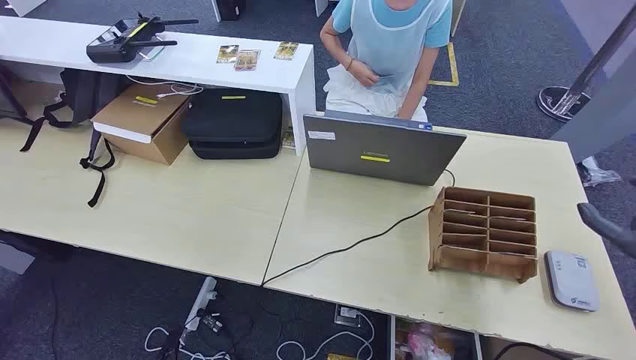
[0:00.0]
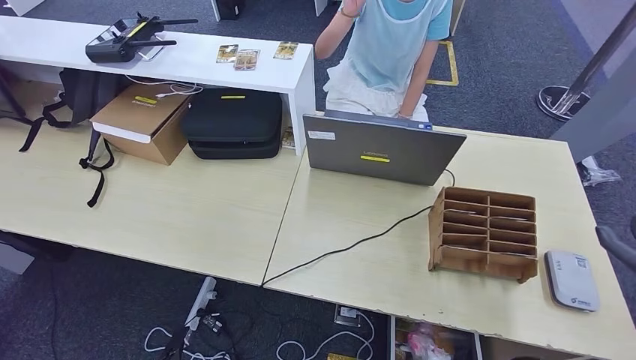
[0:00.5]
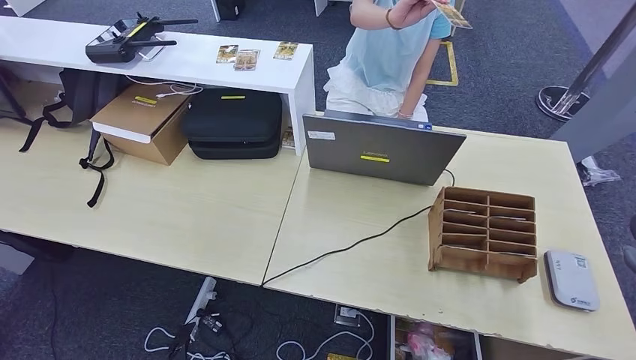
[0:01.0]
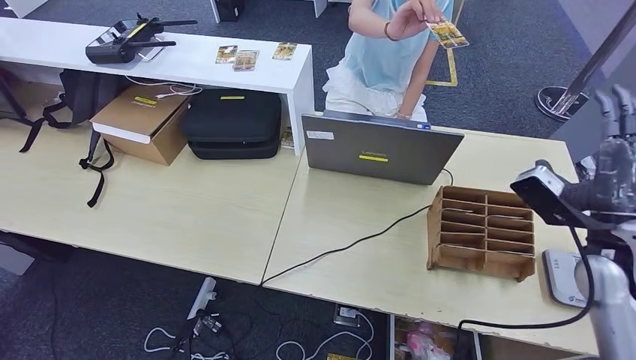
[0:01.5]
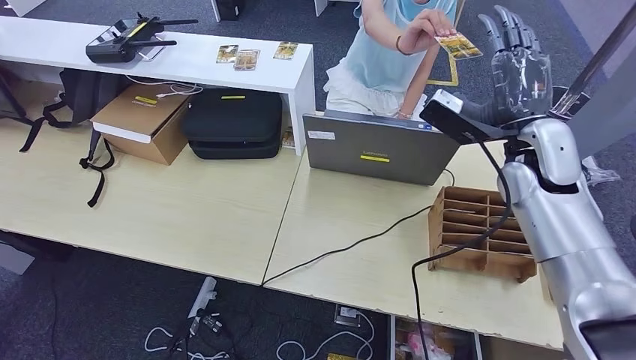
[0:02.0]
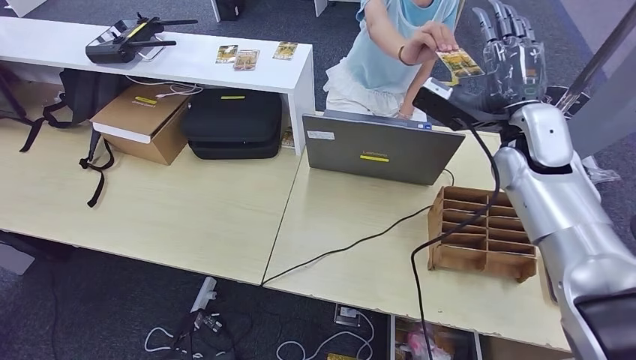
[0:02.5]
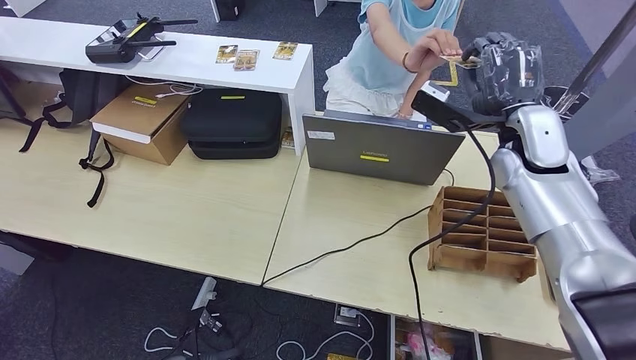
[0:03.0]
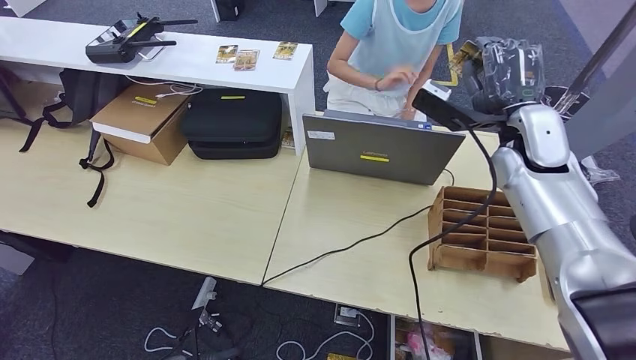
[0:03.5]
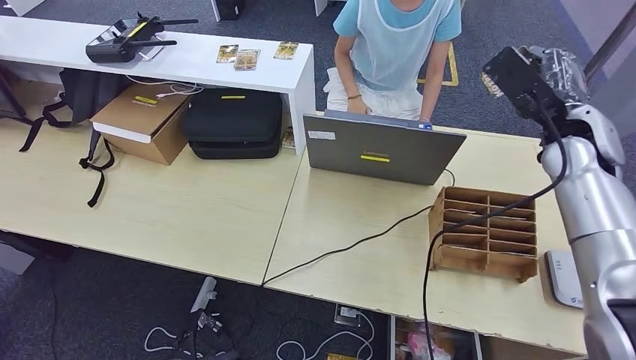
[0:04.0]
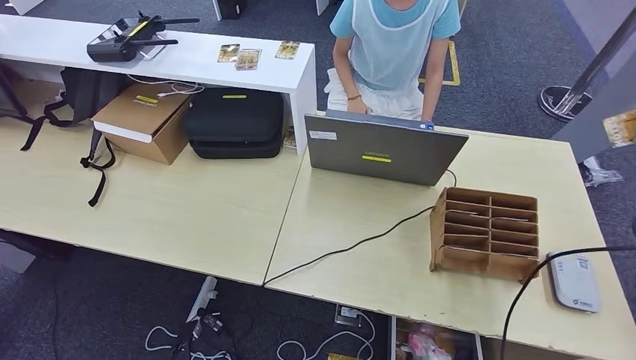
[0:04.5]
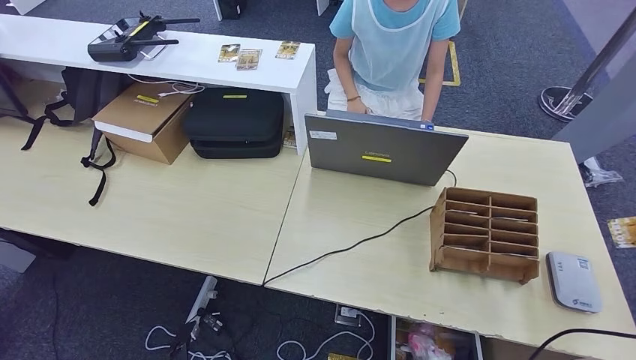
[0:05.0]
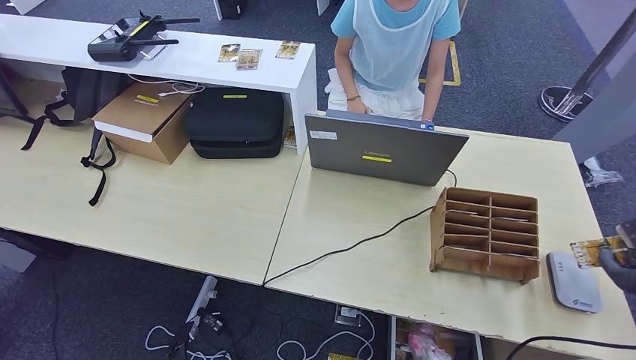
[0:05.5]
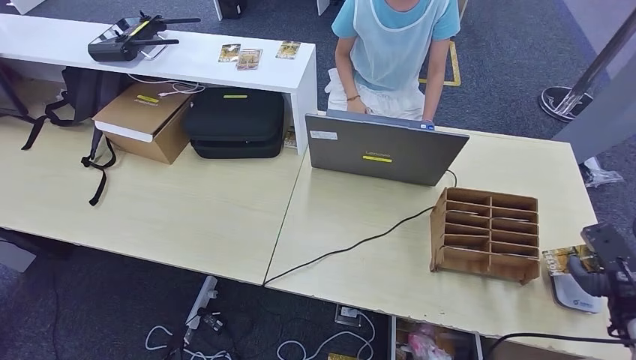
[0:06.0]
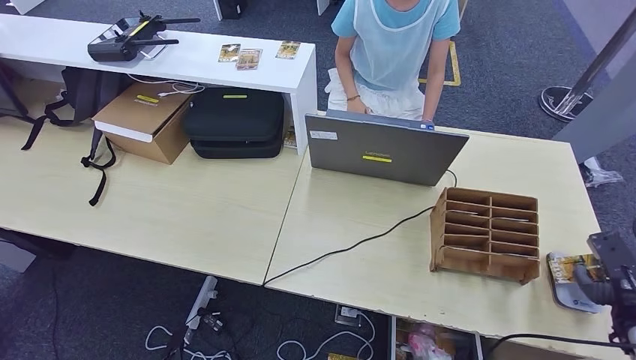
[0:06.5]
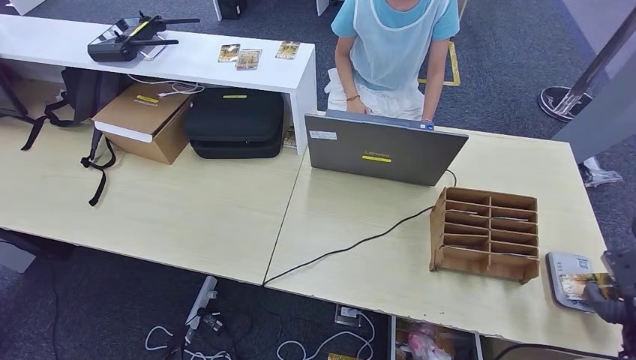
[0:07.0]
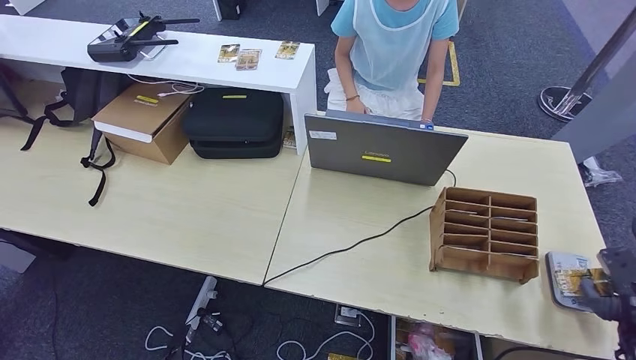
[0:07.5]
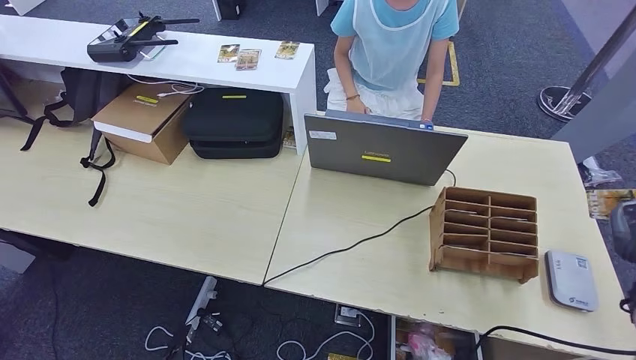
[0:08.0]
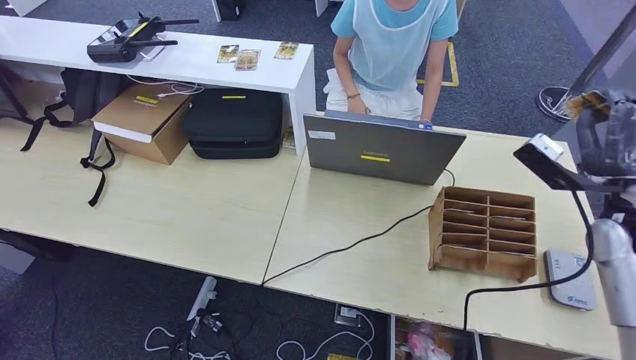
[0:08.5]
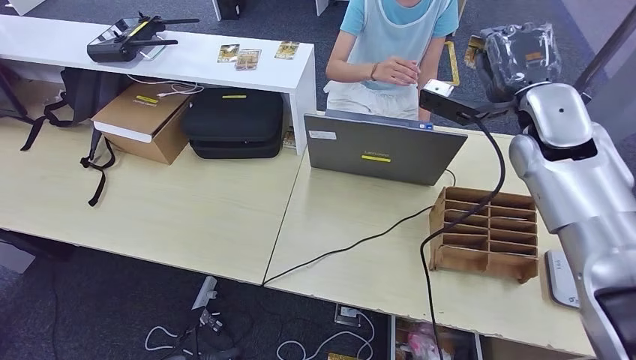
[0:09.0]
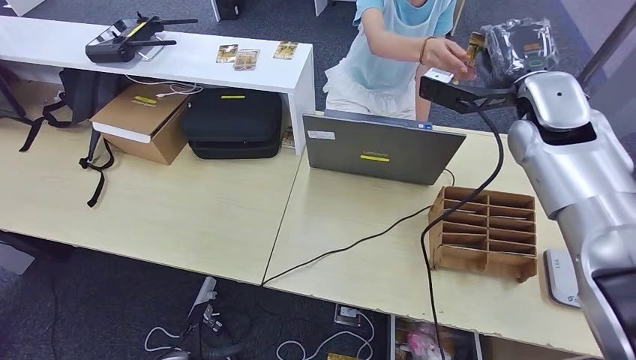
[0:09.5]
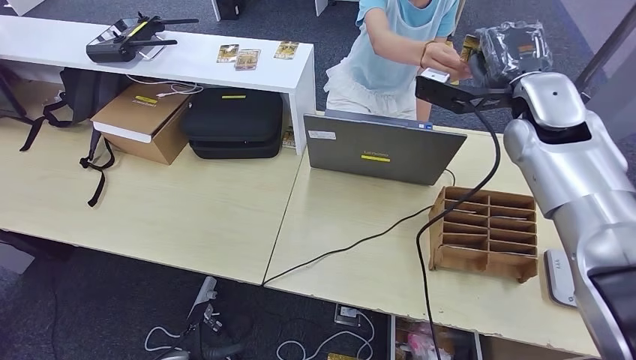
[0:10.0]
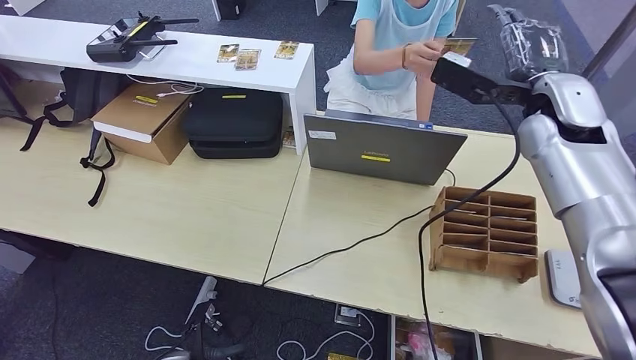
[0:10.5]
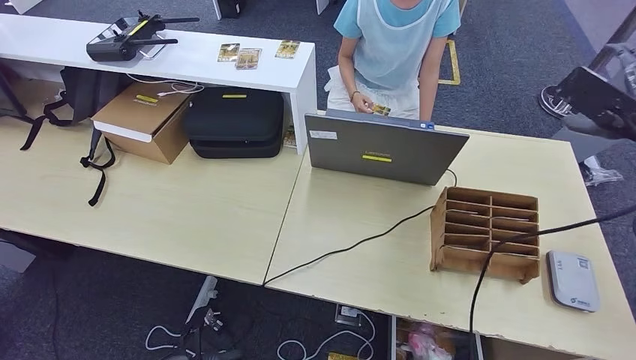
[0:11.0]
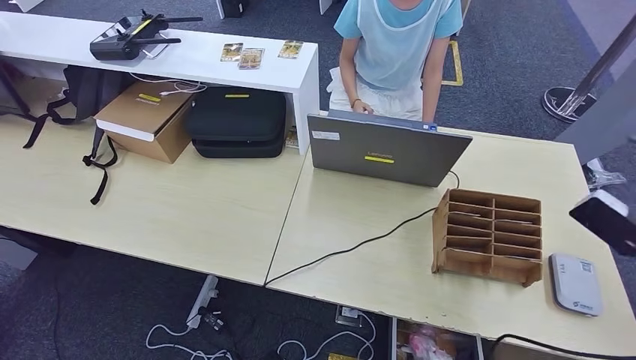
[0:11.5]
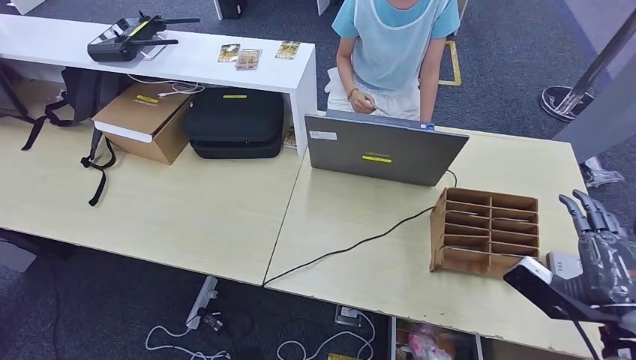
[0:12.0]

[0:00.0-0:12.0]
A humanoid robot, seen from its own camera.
Step, 0:00.0 to 0:04.5: Take the ID card from the person's hand.
Step, 0:05.0 to 0:07.0: Place the ID card on the card reader.
Step, 0:07.5 to 0:11.5: Hand the ID card to the person.
0:02.0 to 0:04.0: The right hand ends up about 5 cm from where it was.
0:04.0 to 0:06.0: The right hand goes roughly 35 cm downward, to the right and backward.
0:06.0 to 0:08.0: The right hand shifts approximately 5 cm upward.
0:08.0 to 0:10.0: The right hand moves to the left, upward and forward, about 35 cm. The left hand shifts by about 5 cm.
0:10.0 to 0:12.0: The right hand shifts roughly 35 cm backward, downward and to the right; the left hand goes some 5 cm backward.

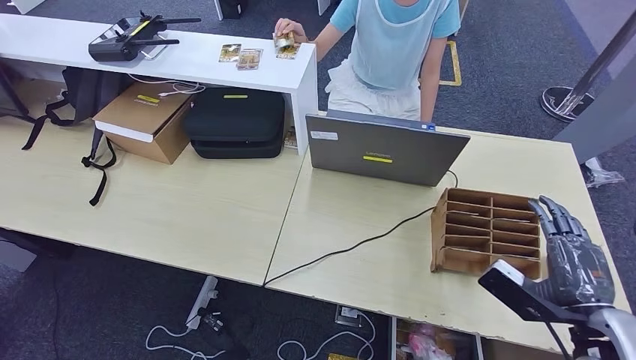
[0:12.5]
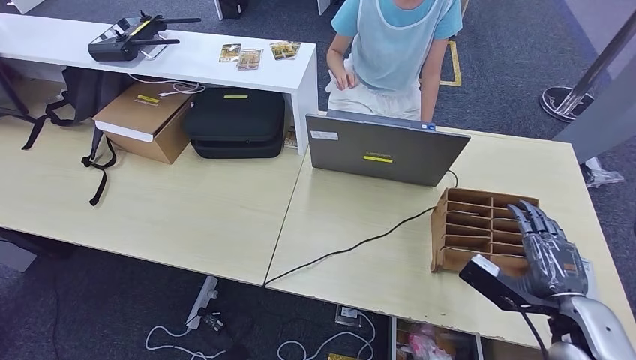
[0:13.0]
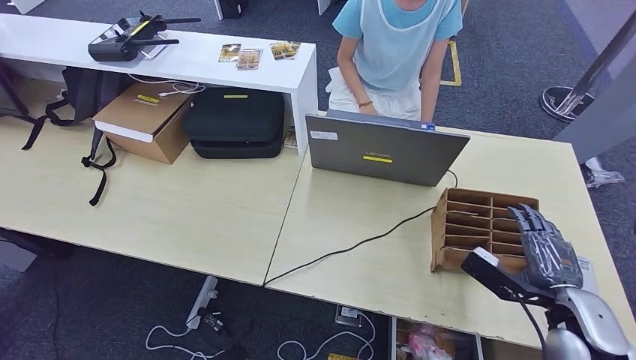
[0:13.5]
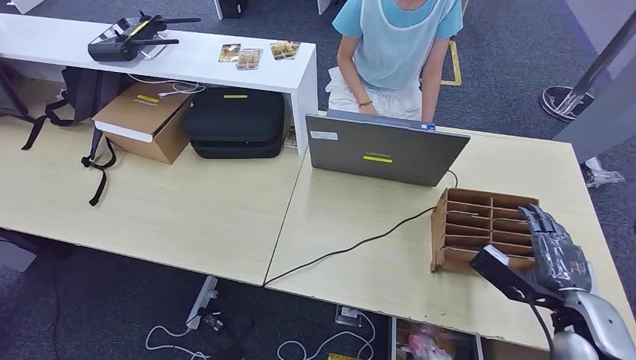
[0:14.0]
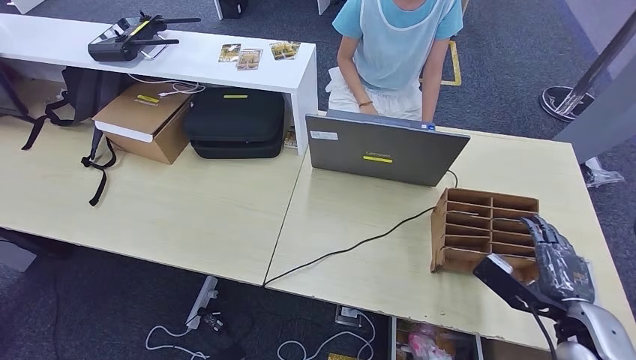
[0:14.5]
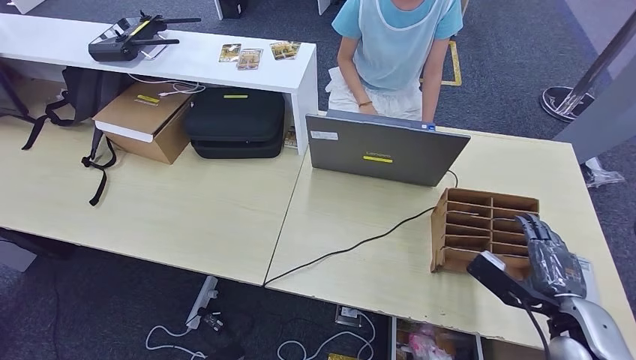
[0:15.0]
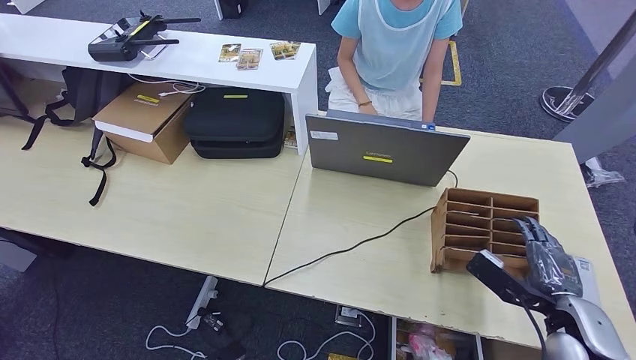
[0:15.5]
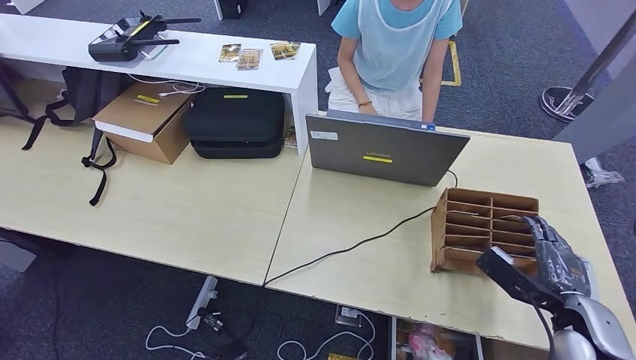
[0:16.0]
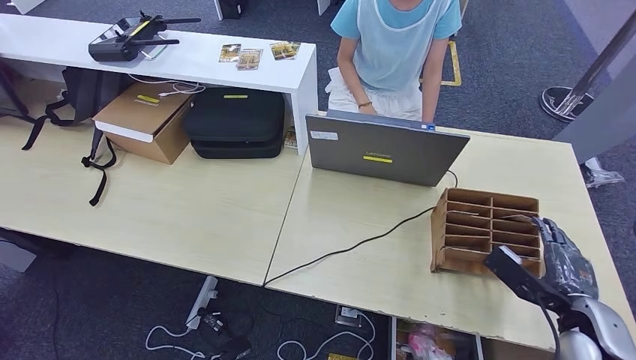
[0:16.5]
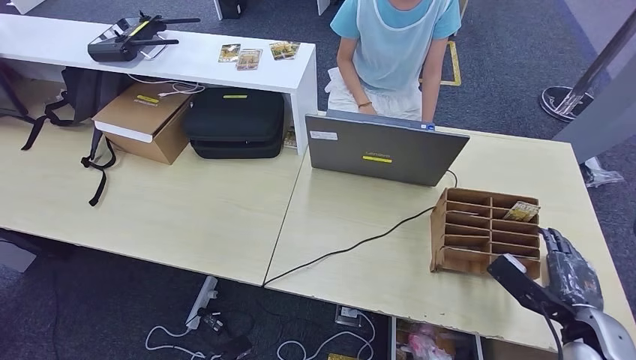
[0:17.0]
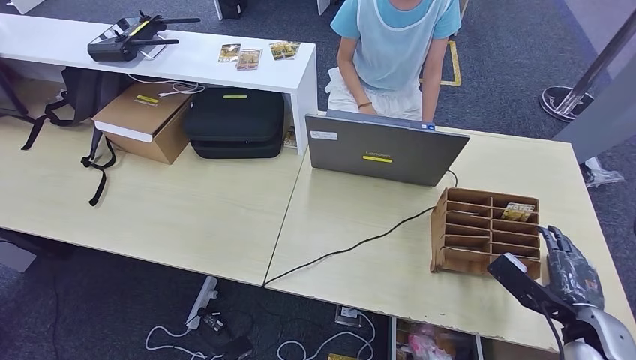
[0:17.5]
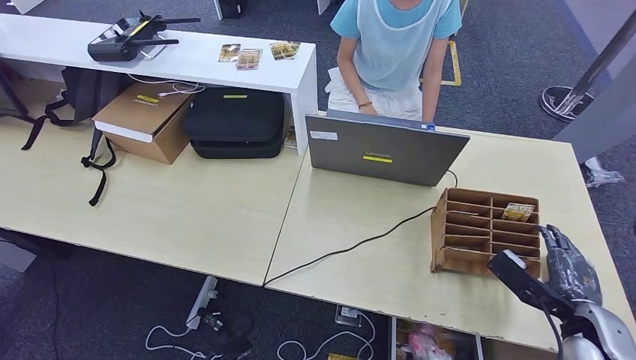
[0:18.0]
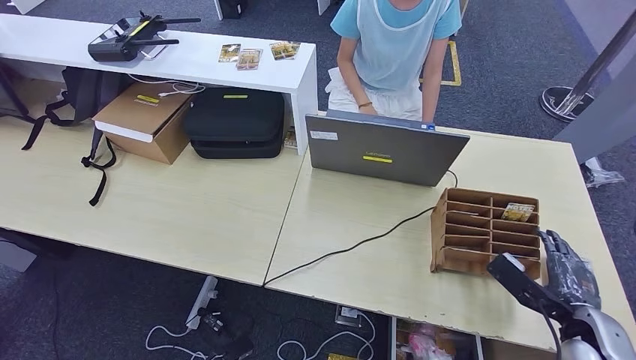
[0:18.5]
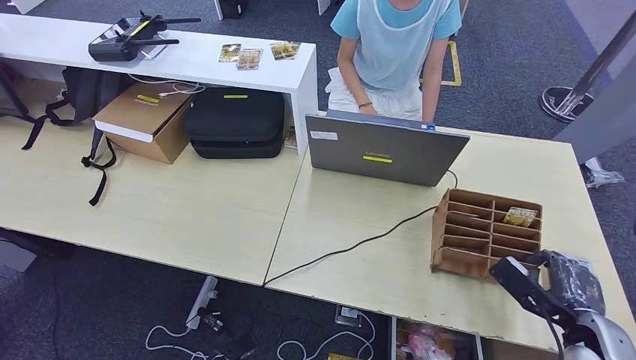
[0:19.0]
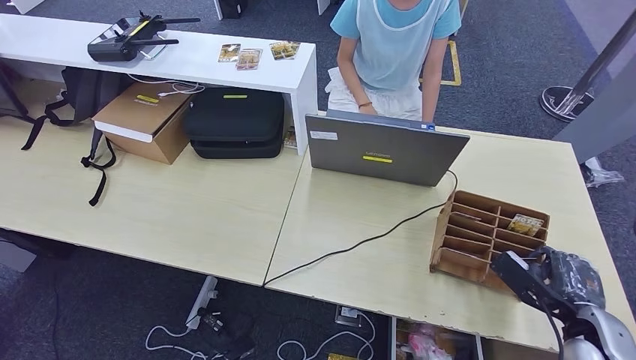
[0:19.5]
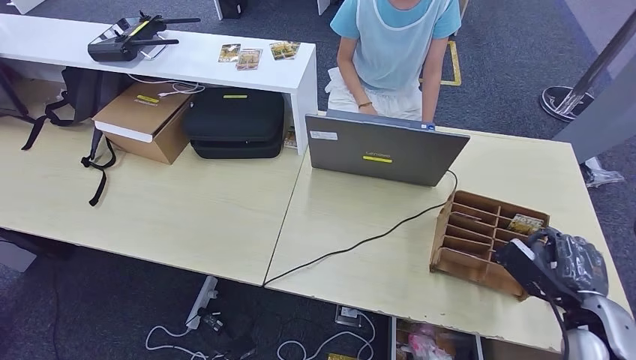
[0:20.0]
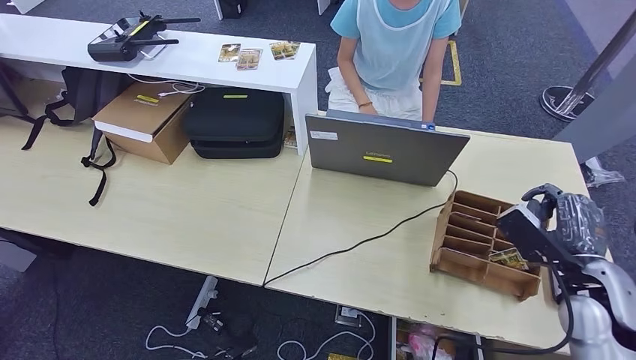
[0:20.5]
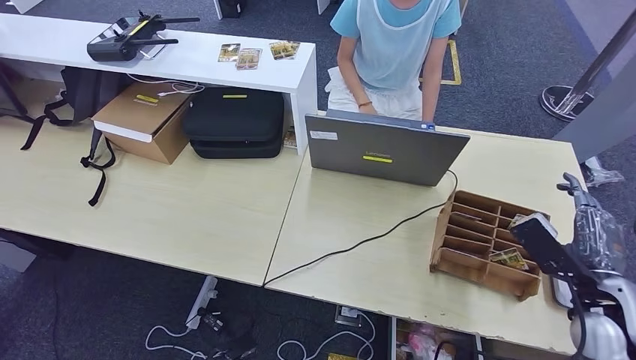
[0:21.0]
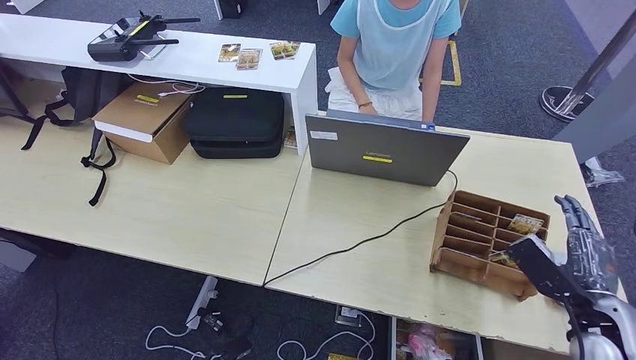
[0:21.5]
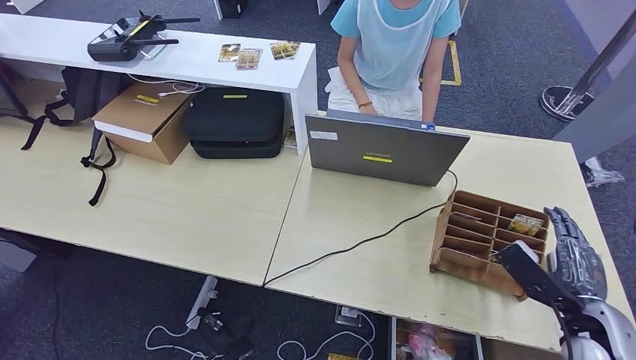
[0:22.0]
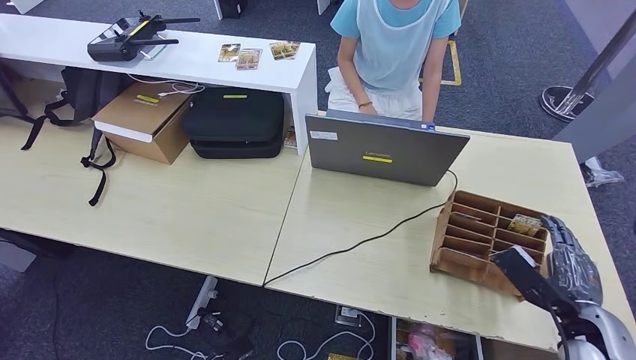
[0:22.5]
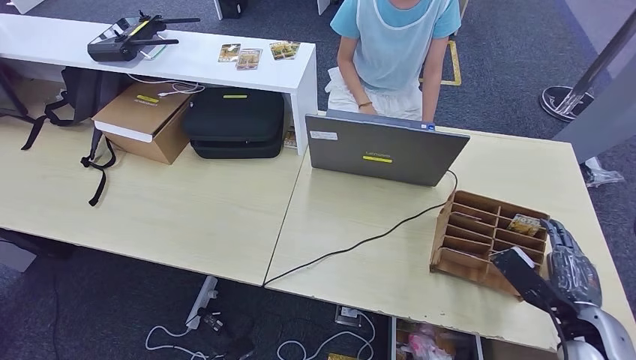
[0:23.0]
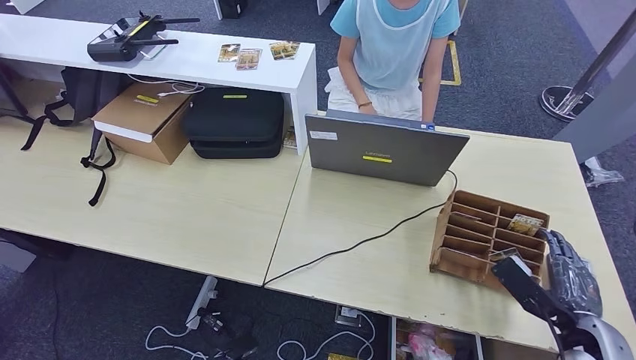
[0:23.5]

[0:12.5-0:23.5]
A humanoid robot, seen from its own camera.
0:12.5 to 0:14.5: The right hand ends up roughly 5 cm from where it was.
0:14.5 to 0:20.0: The hands stay close to where they were, moving slightly.
0:21.5 to 0:23.5: The hands stay close to where they were, moving slightly.
